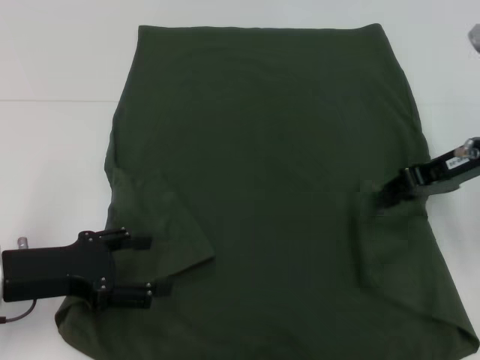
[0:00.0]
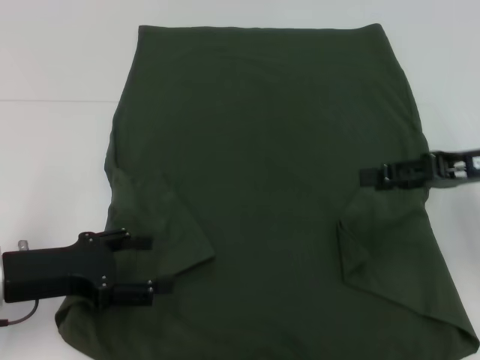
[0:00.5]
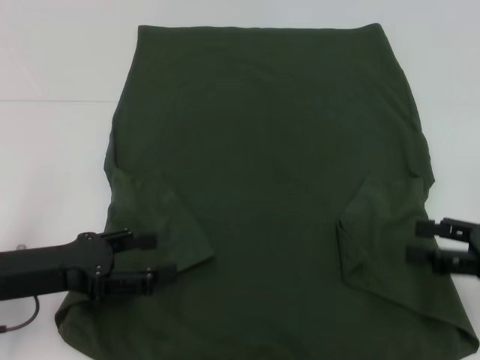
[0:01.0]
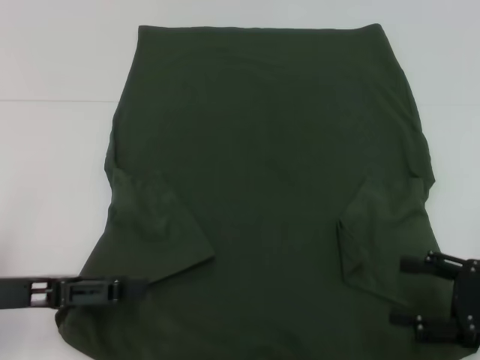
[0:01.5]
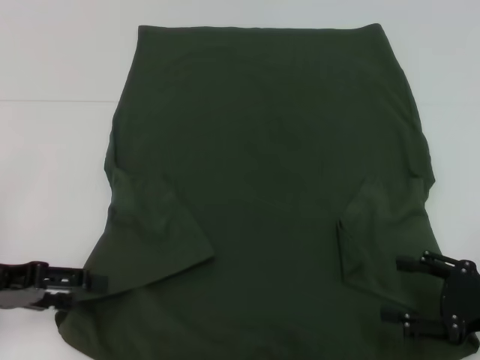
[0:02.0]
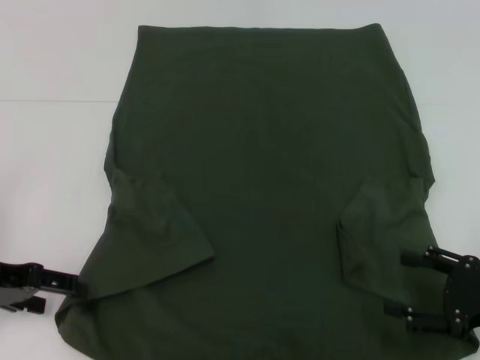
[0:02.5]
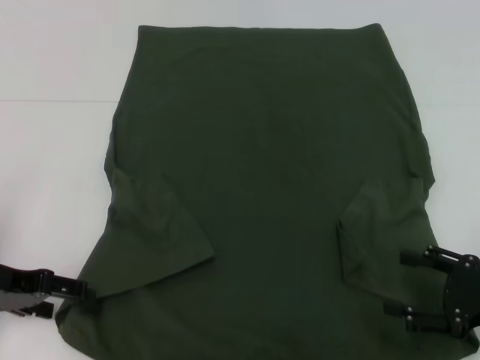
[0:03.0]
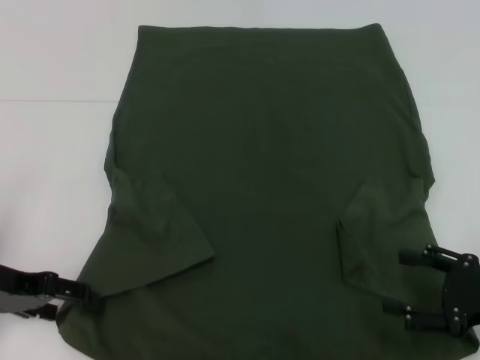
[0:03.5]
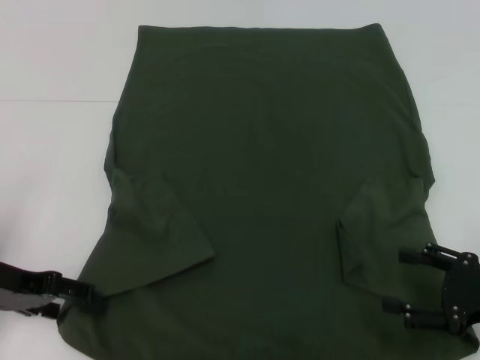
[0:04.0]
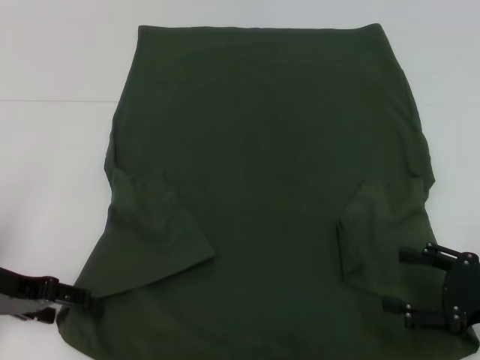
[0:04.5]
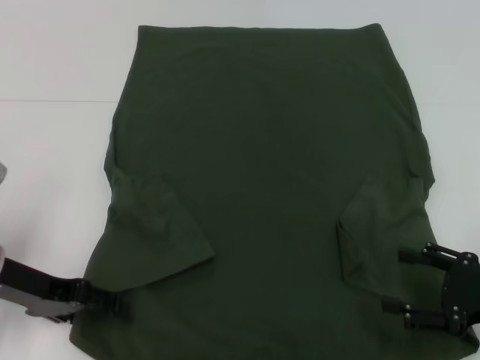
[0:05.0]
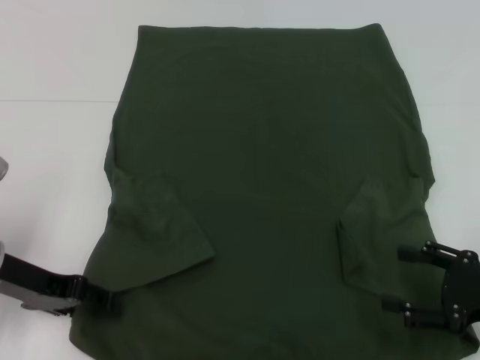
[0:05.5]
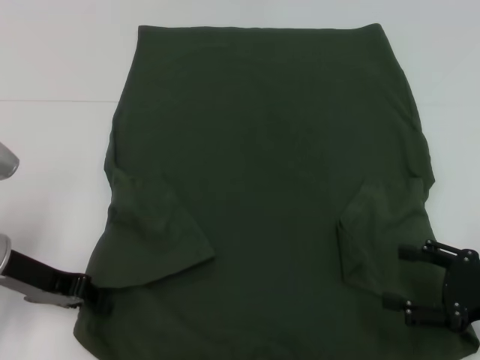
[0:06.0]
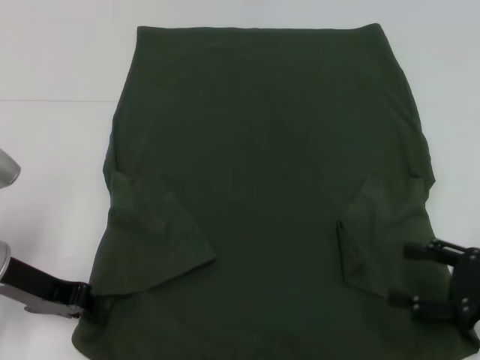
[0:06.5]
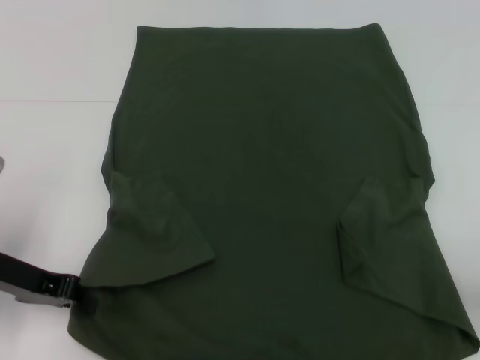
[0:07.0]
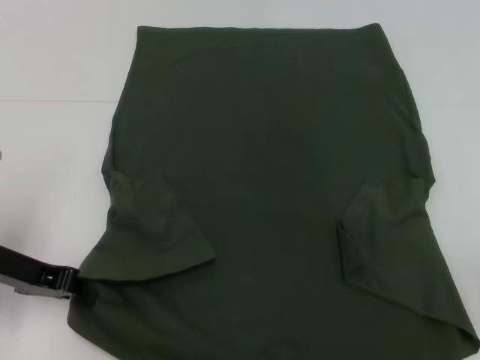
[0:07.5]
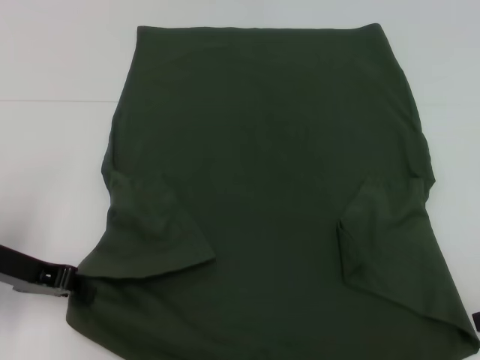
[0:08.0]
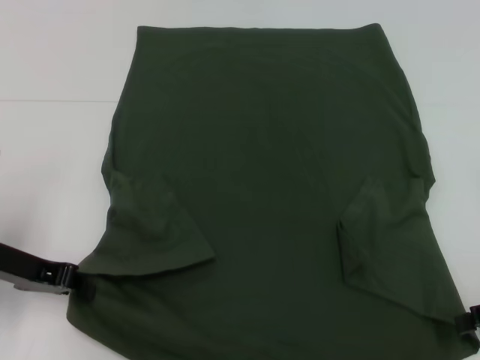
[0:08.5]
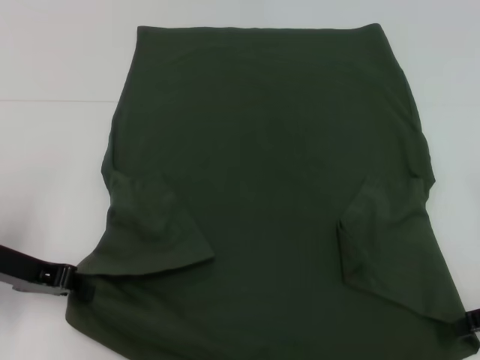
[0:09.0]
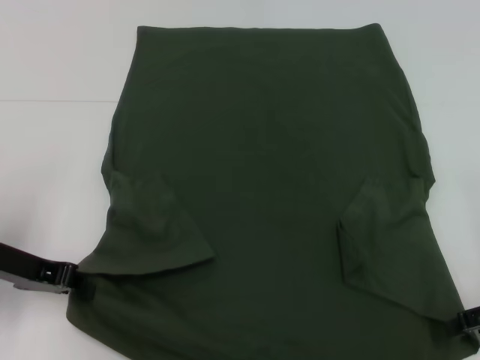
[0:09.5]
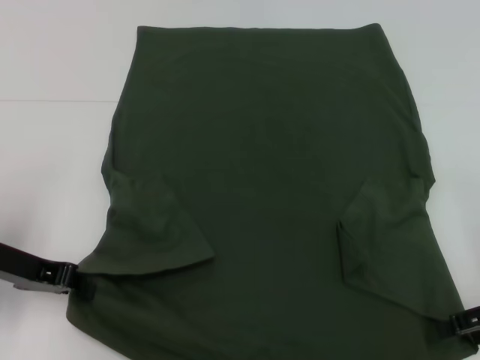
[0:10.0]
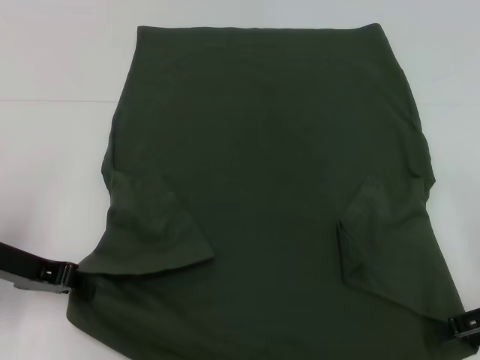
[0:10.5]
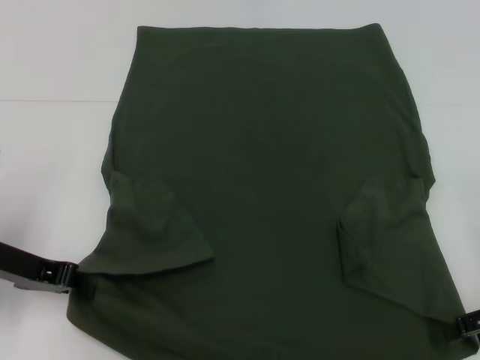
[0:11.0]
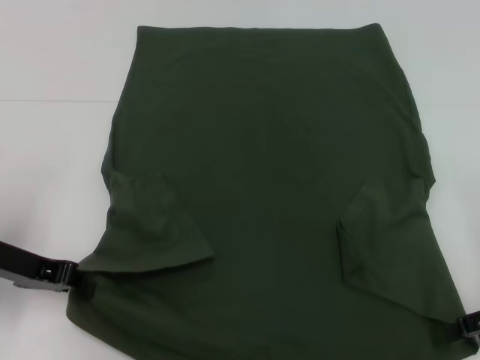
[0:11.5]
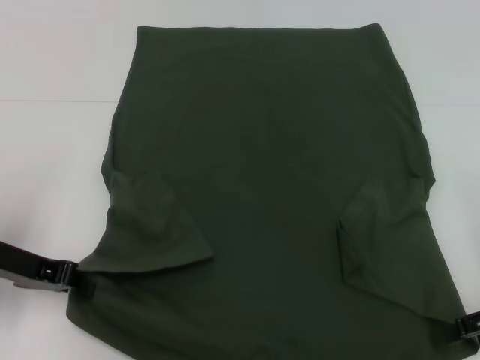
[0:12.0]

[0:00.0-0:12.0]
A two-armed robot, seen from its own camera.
Step, 0:00.5 to 0:06.5: Grab the bottom left corner with your left hand.
0:00.0 to 0:02.0: The left gripper shifts by roughly 5 cm; the right gripper goes roughly 20 cm backward and downward, and opens.
0:02.0 to 0:04.0: The grippers stay close to where they were, moving slightly.
0:04.0 to 0:06.0: The left gripper closes.
0:06.0 to 0:08.0: The right gripper heads upward and to the right, covering roughly 10 cm, while the left gripper closes up.
0:08.0 to 0:10.0: The grippers stay close to where they were, moving slightly.
0:10.0 to 0:12.0: Both grippers stay about where they are.

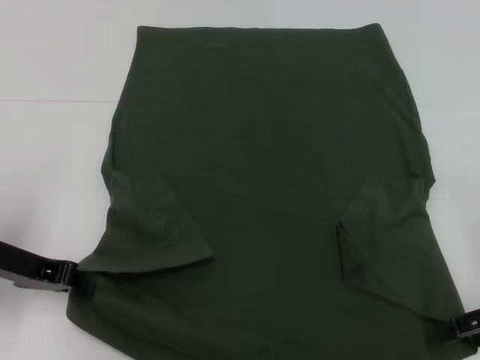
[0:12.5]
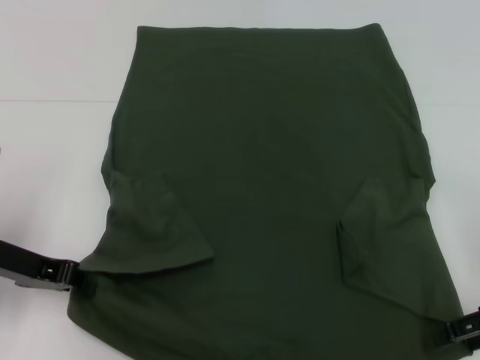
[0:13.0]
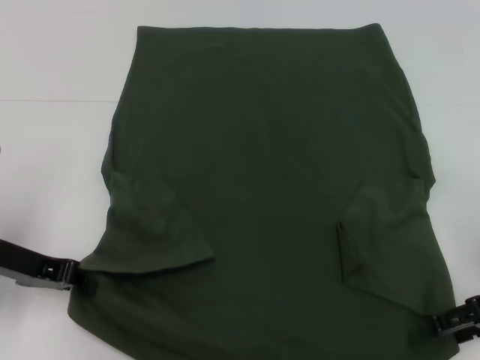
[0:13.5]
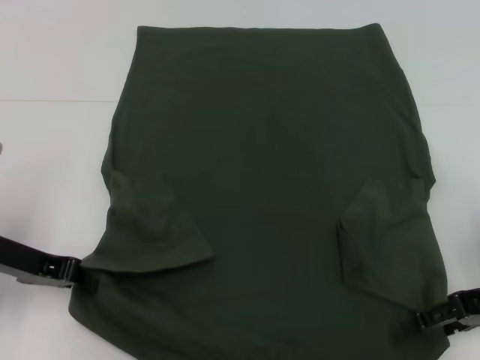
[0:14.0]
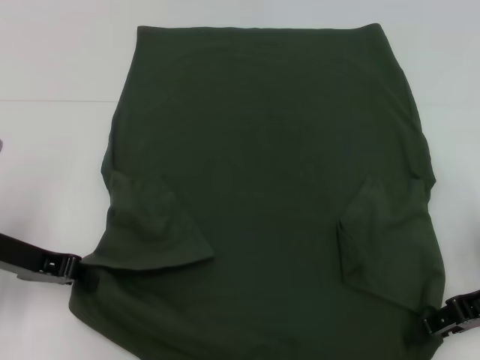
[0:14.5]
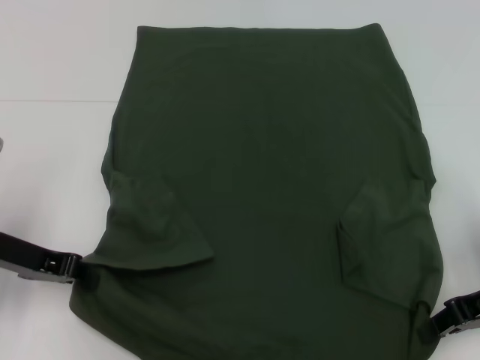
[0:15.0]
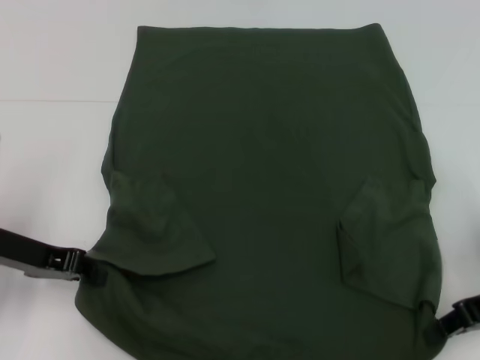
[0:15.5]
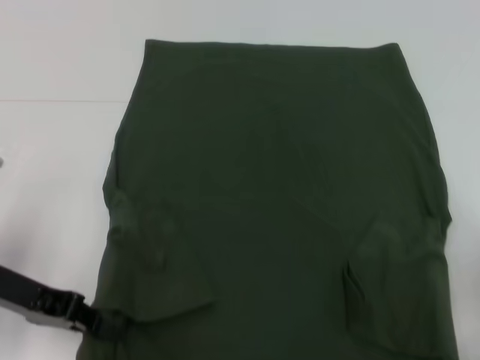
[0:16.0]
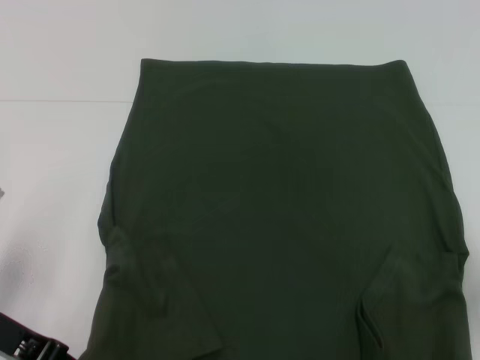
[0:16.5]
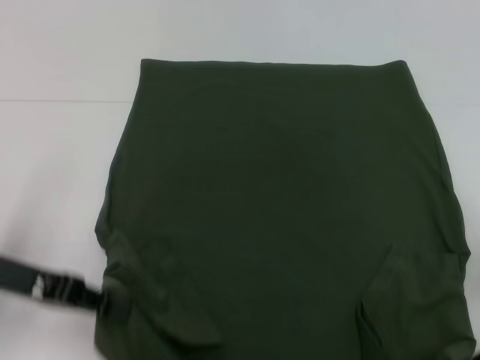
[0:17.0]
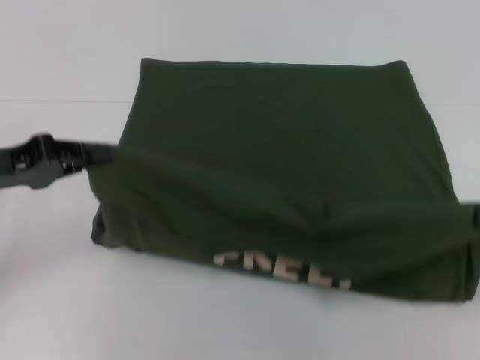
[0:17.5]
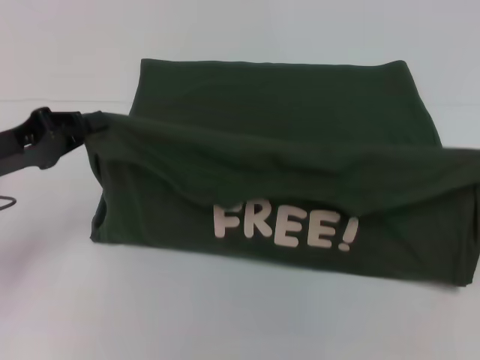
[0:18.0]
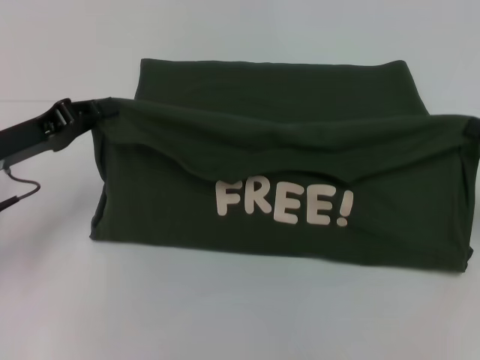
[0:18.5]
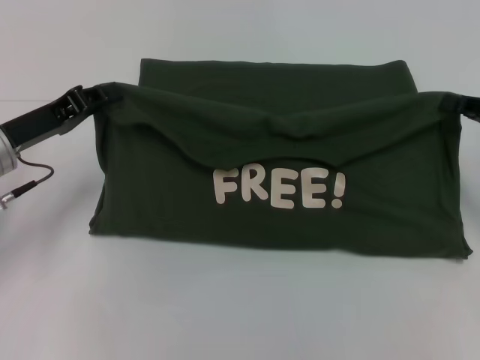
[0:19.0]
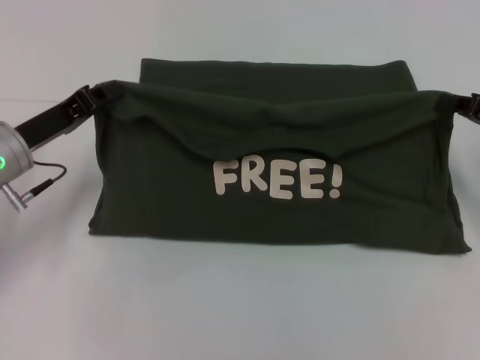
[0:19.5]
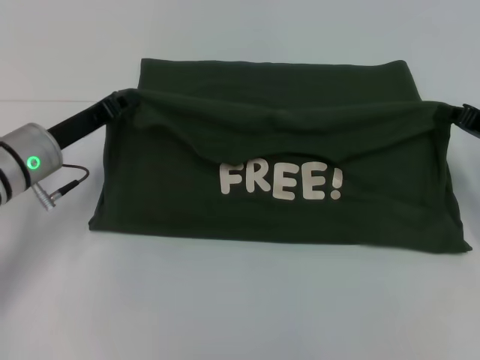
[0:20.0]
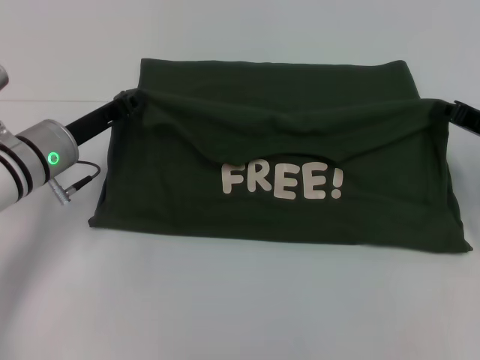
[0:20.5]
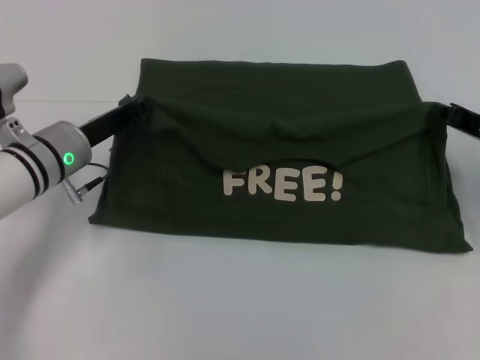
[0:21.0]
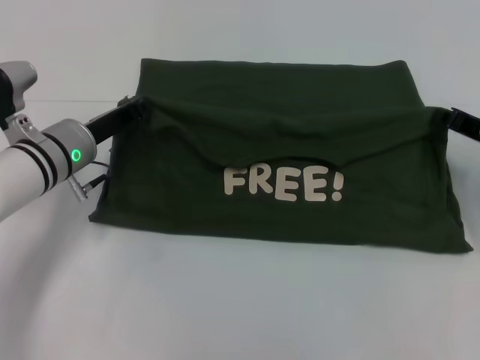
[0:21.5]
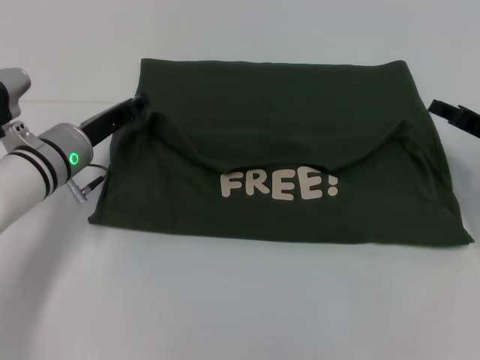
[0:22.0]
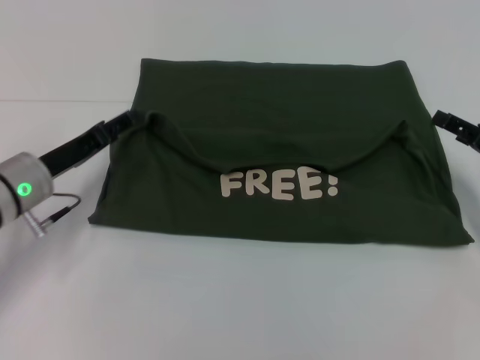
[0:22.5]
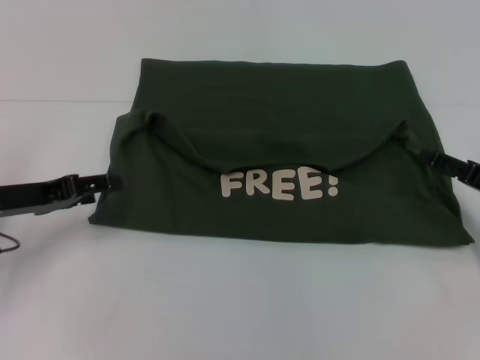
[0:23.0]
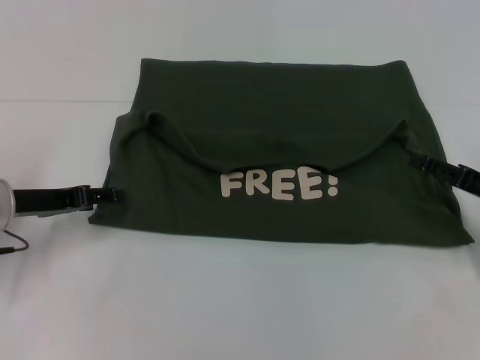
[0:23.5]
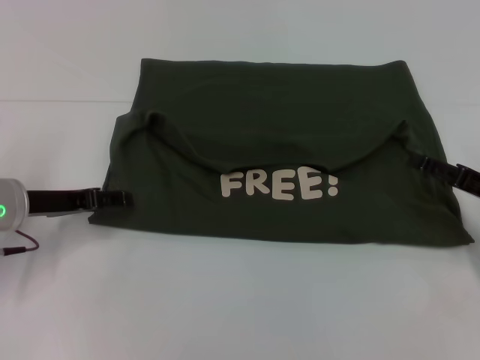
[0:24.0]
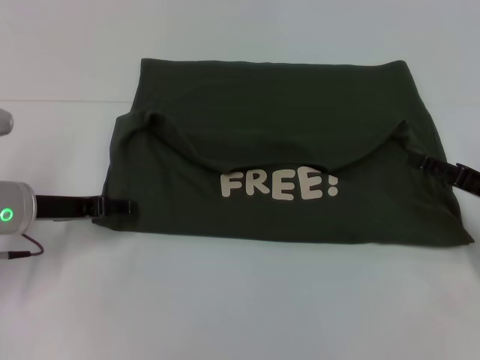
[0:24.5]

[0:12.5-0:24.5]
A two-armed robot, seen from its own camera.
Step, 0:12.5 to 0:15.5: Grab the bottom right corner with your right hand.
Step, 0:16.0 to 0:22.0: Fold the clothes with your left hand.
Step, 0:16.0 to 0:22.0: Fold the clothes with your right hand.
0:12.5 to 0:14.5: The right gripper closes.
0:14.5 to 0:16.5: The right gripper is displaced backward by some 5 cm, and closes up.
0:16.5 to 0:18.5: The left gripper is displaced forward by some 5 cm; the right gripper heads forward and to the right, covering about 10 cm.
0:18.5 to 0:20.5: The right gripper shifts some 10 cm forward and to the left. The left gripper travels to the right by approximately 5 cm.
0:20.5 to 0:22.5: The left gripper opens up. Meanwhile the right gripper ends up approximately 5 cm from where it was, and opens.

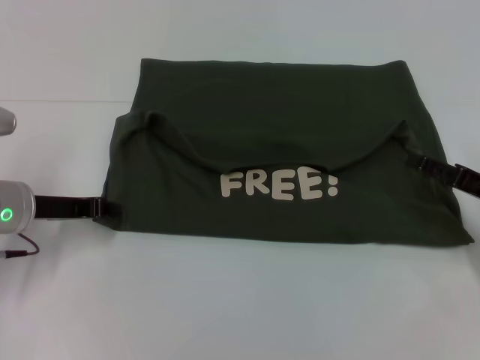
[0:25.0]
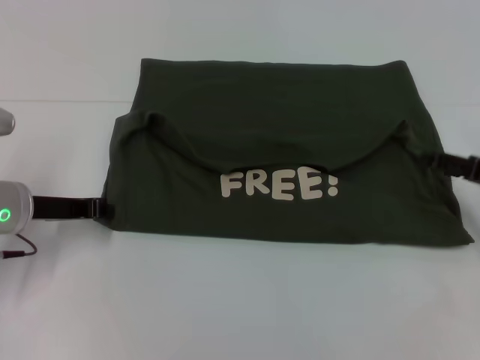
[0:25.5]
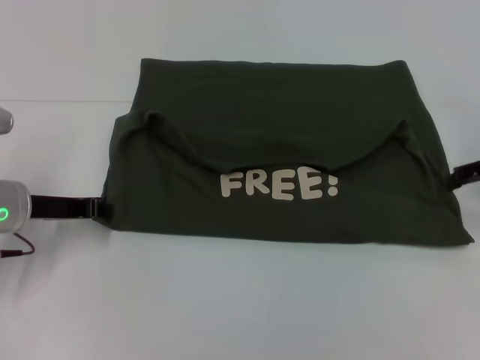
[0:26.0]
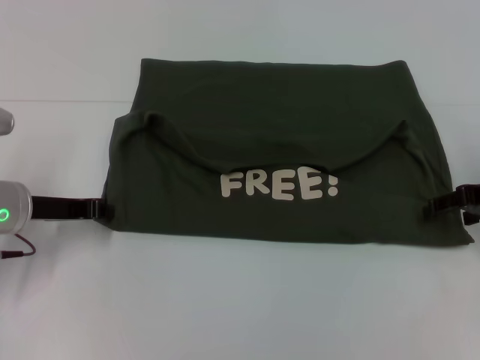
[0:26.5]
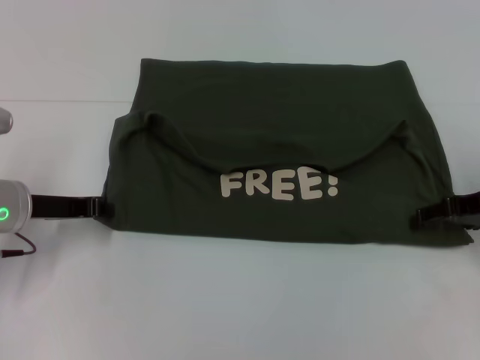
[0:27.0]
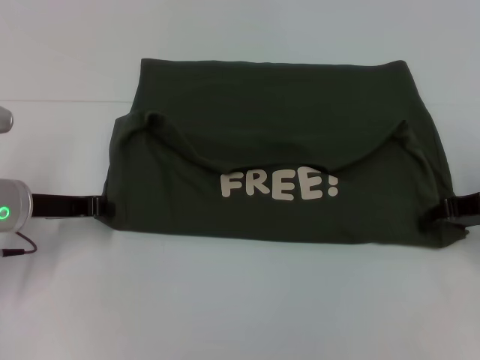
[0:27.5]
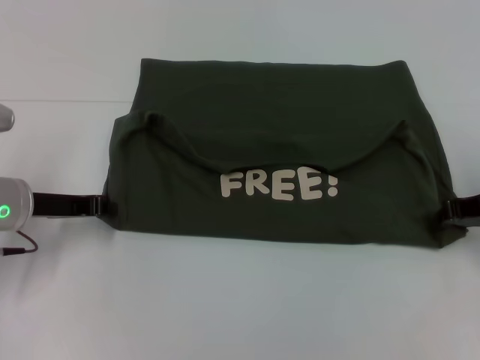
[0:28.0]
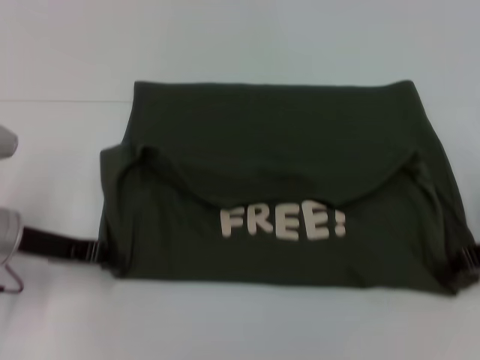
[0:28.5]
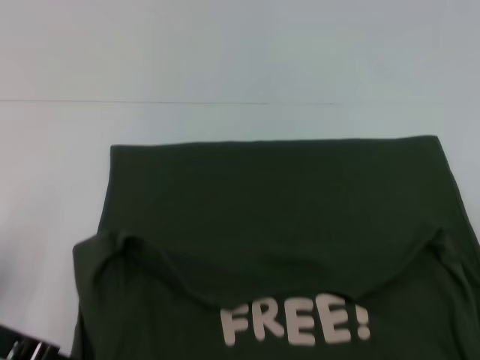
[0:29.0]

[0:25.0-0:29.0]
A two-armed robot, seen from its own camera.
0:25.0 to 0:27.0: The right gripper heads forward and upward, covering approximately 5 cm.
0:27.0 to 0:29.0: The two grippers go about 10 cm backward. The right gripper closes up.
